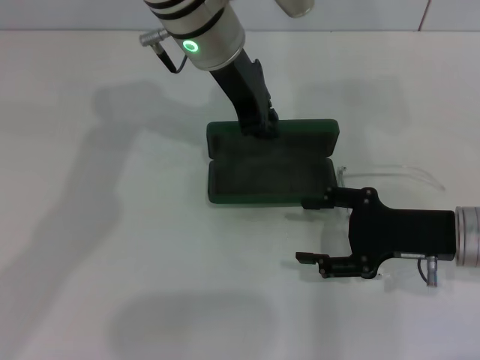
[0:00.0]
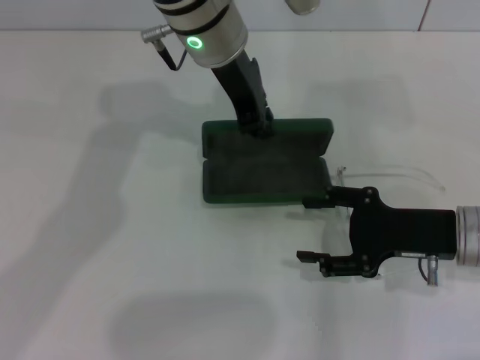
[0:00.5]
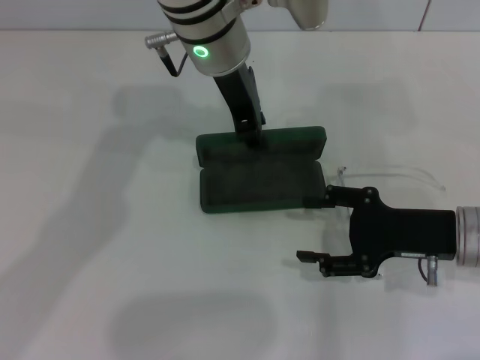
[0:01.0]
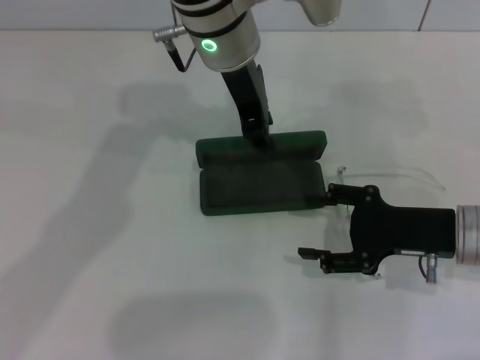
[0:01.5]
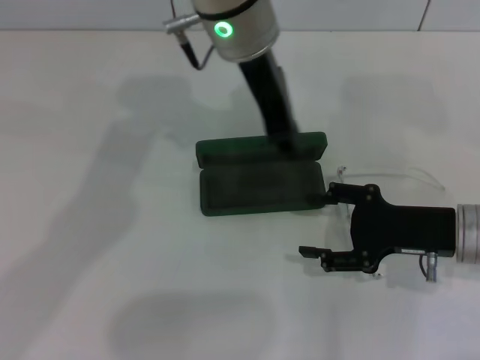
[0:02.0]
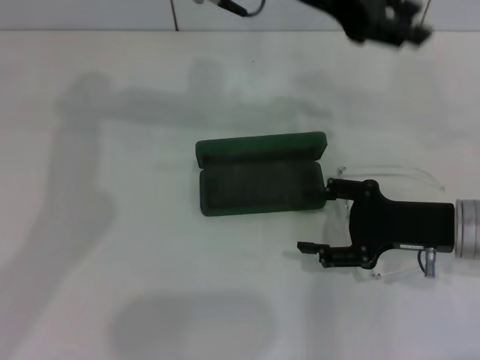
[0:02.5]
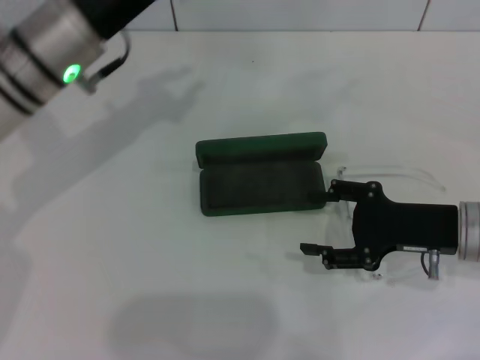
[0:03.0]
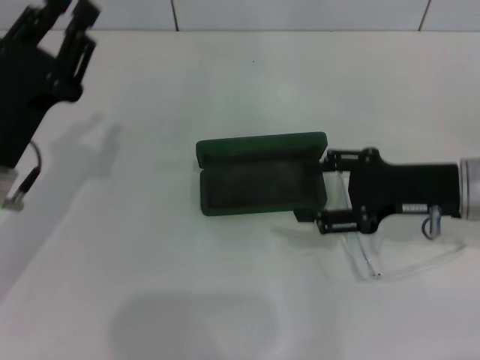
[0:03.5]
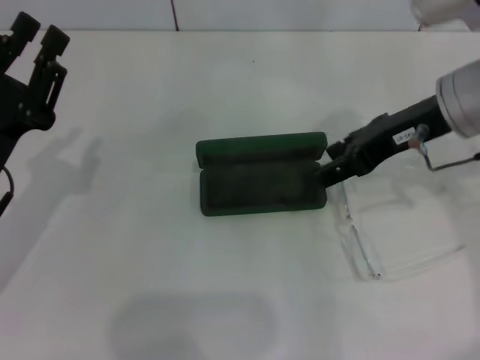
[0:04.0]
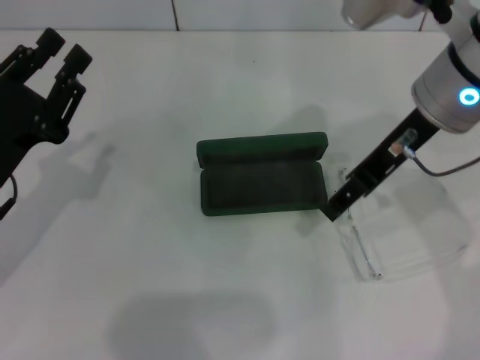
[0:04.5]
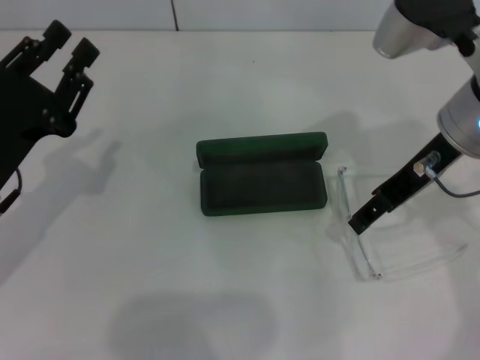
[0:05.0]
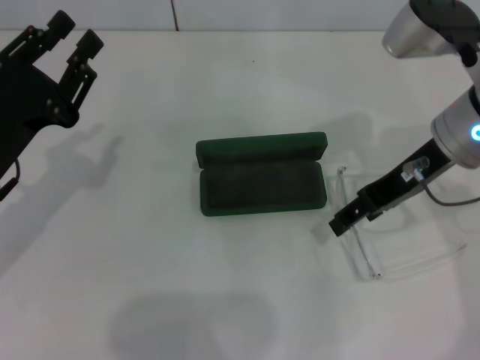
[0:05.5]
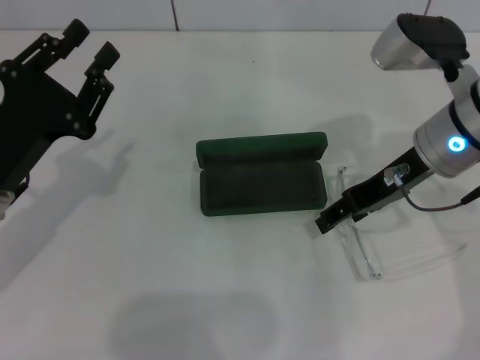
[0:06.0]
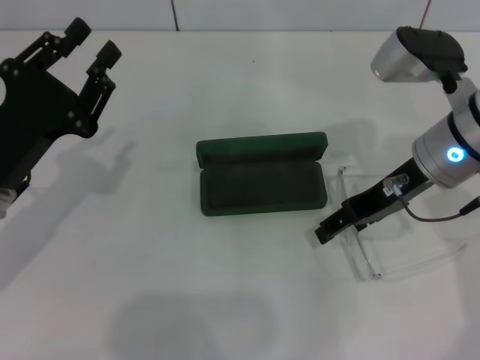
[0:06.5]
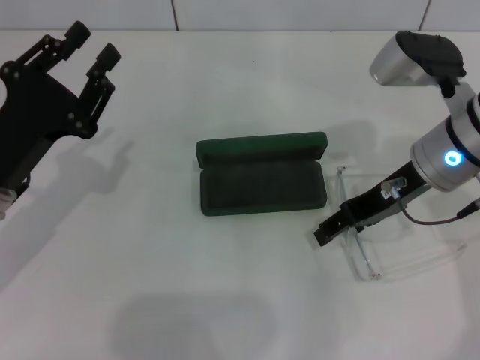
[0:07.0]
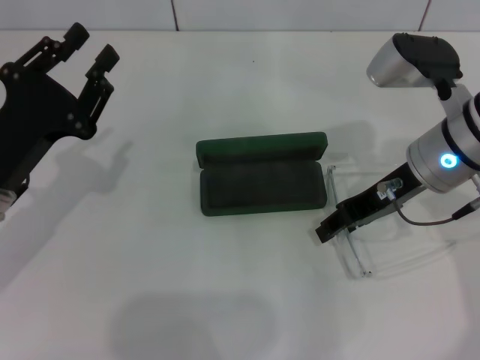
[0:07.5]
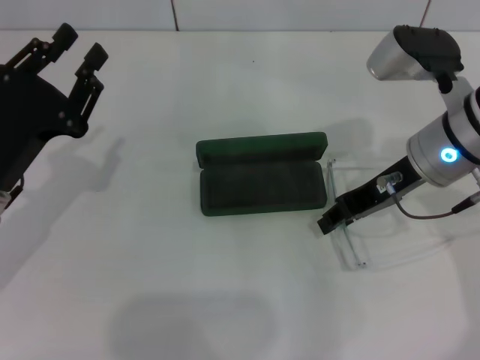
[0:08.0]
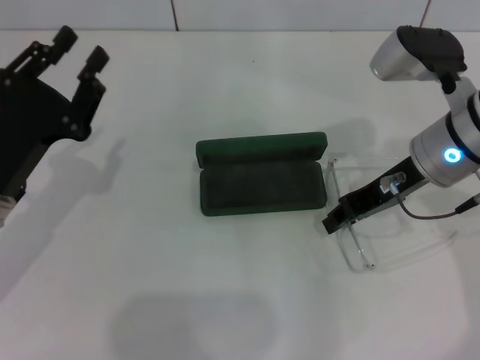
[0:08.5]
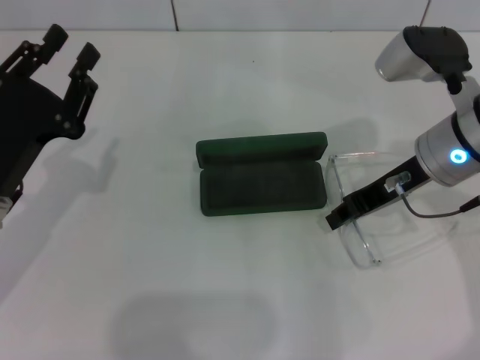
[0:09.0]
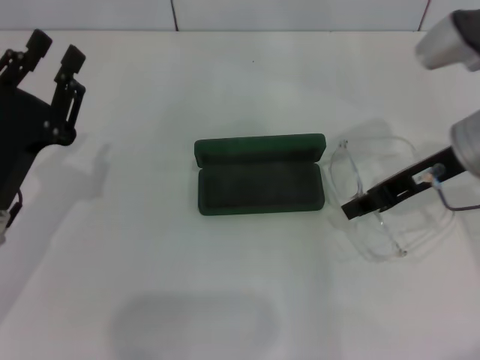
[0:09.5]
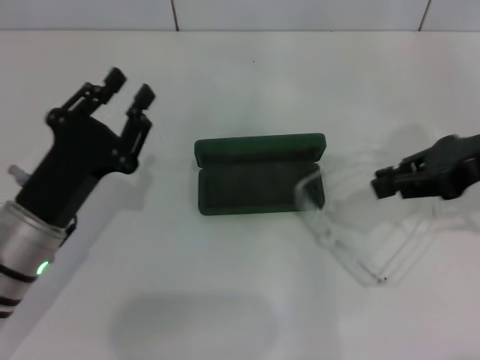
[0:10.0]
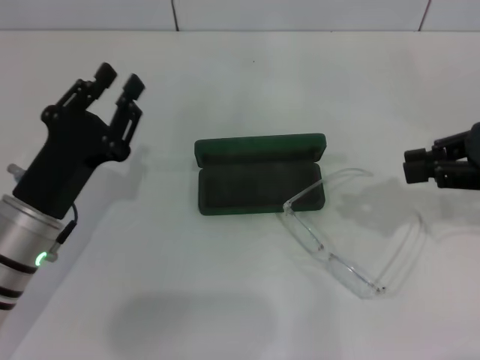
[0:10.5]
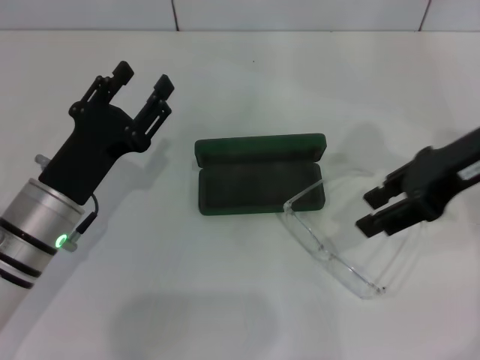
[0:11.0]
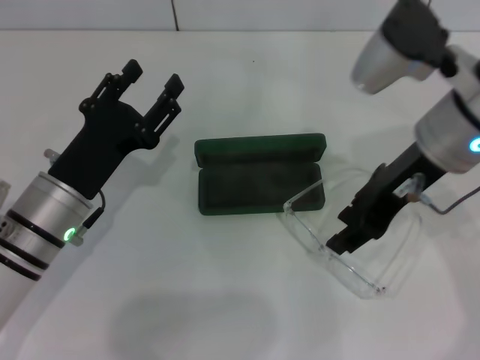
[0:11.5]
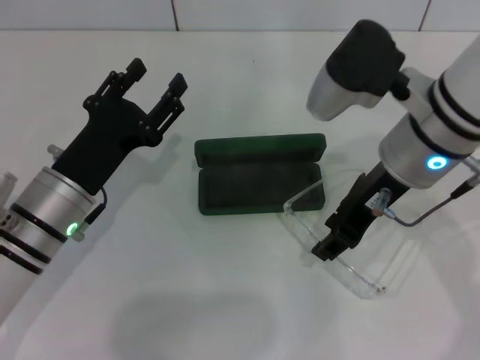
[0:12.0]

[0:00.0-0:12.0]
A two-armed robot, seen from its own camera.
Step, 2.0 to 9.0 s: Grab the eyeglass frame with your right hand.
0.0 to 2.0 s: The grippers make only small movements.
2.0 to 4.0 s: The left gripper travels to the left, backward and downward by some 35 cm. The right gripper heads upward and forward, covering about 15 cm.
6.0 to 8.0 s: The right gripper closes up.
8.0 to 10.0 s: The left gripper changes place by roughly 5 cm; the right gripper goes roughly 10 cm to the right, and closes.
10.0 to 12.0 s: The left gripper opens. Meanwhile the right gripper goes roughly 15 cm to the left, and opens up.

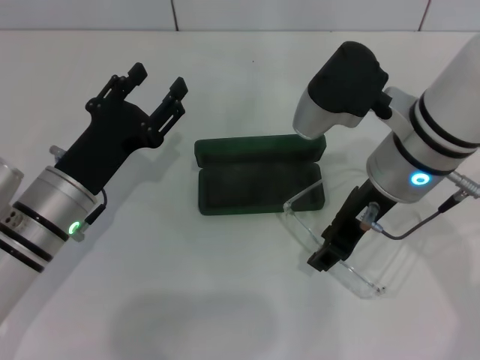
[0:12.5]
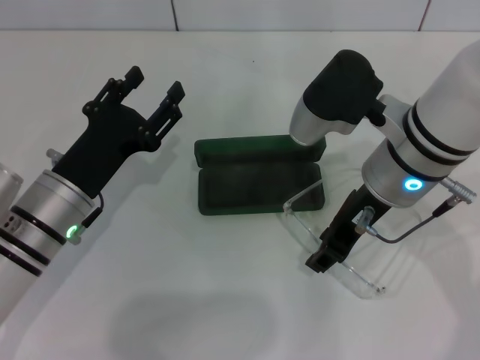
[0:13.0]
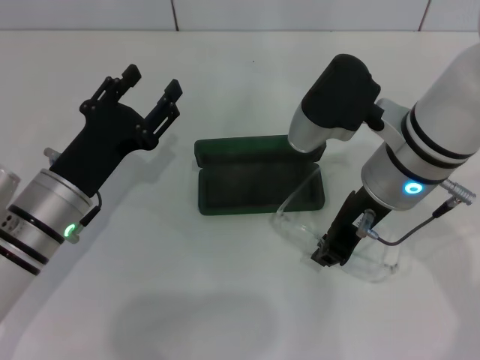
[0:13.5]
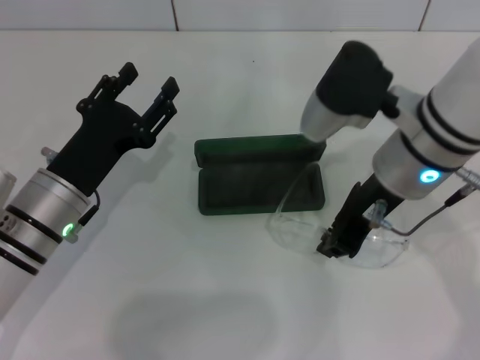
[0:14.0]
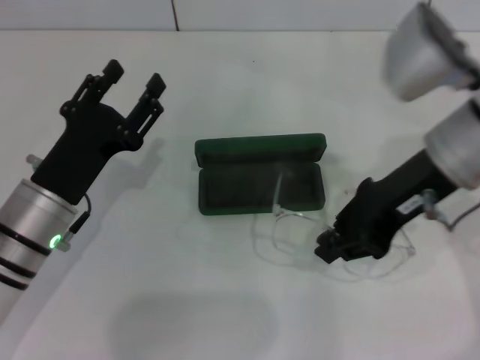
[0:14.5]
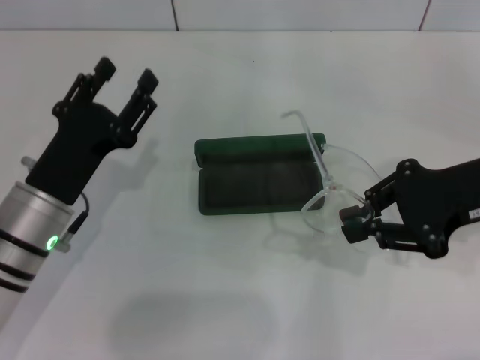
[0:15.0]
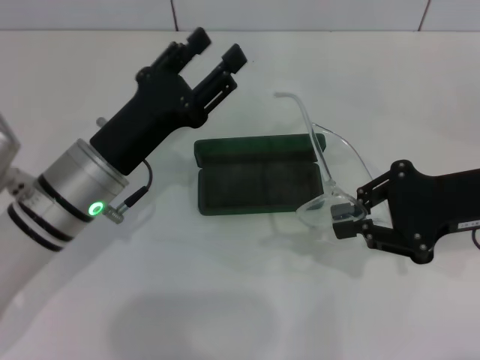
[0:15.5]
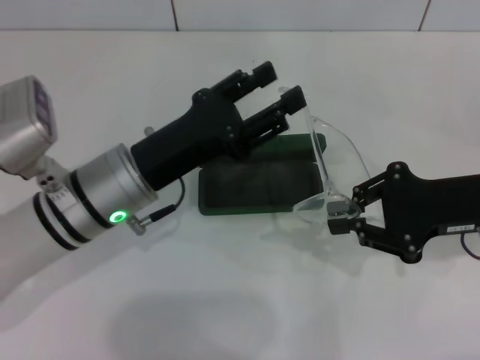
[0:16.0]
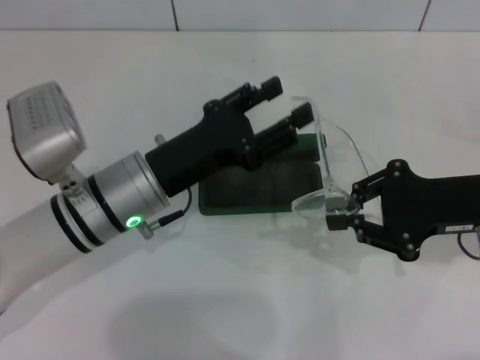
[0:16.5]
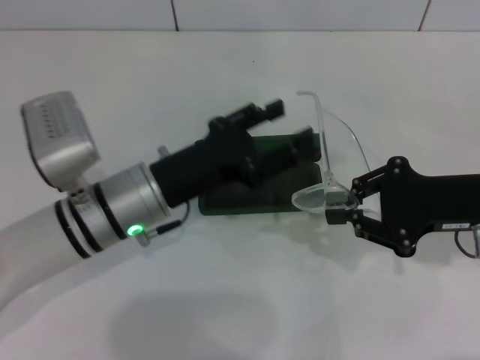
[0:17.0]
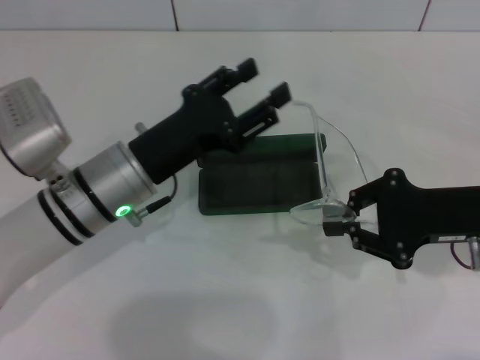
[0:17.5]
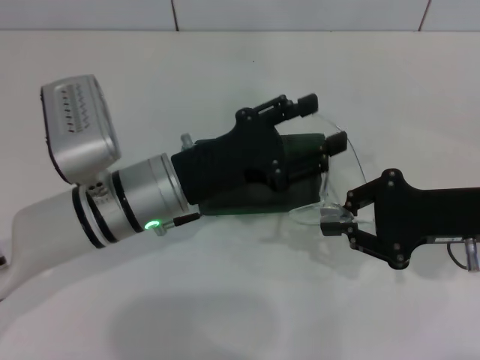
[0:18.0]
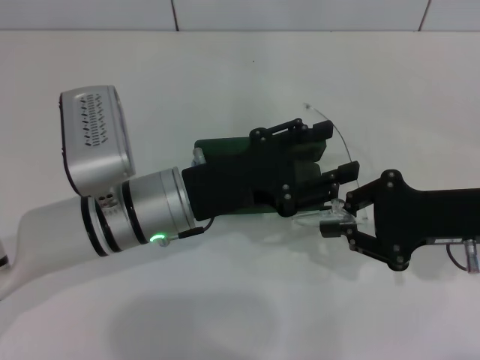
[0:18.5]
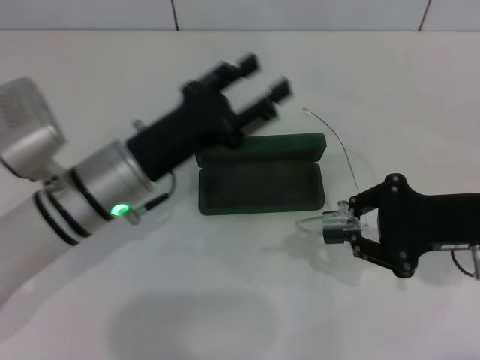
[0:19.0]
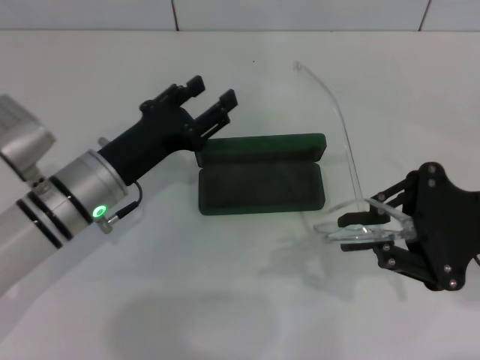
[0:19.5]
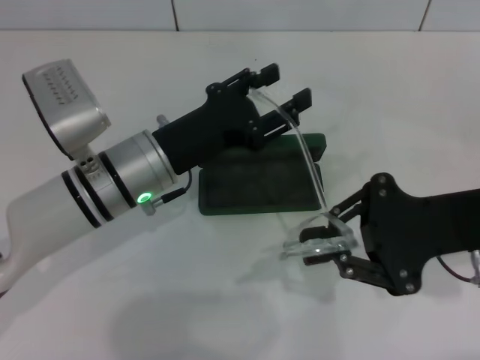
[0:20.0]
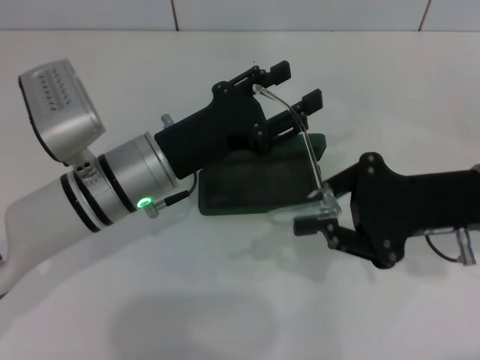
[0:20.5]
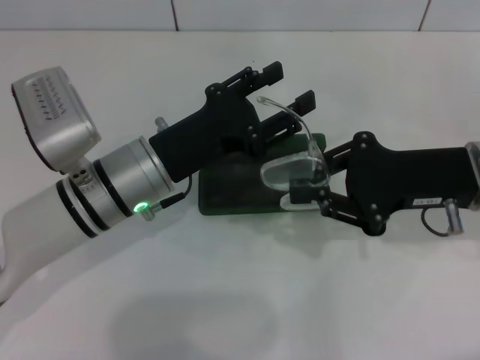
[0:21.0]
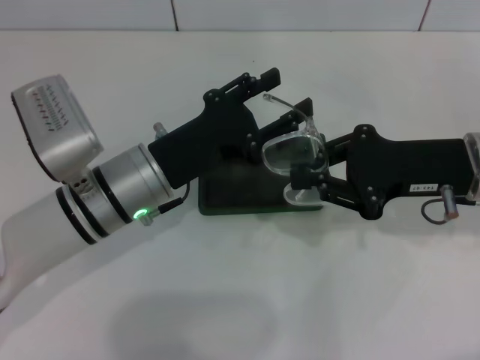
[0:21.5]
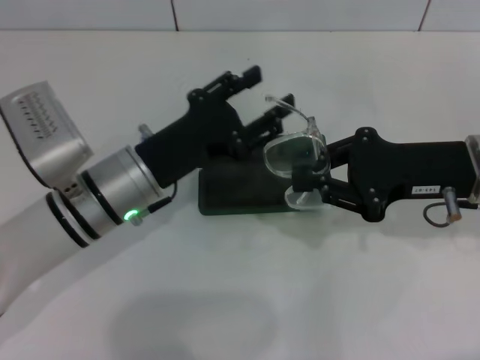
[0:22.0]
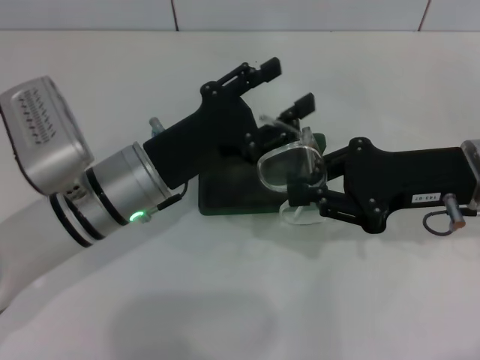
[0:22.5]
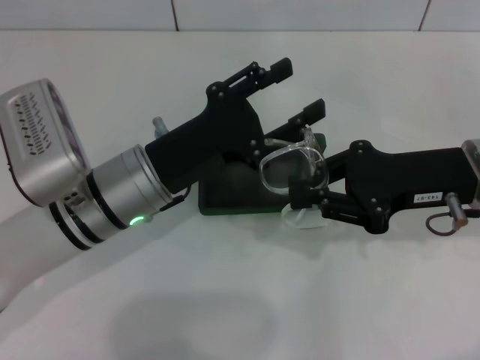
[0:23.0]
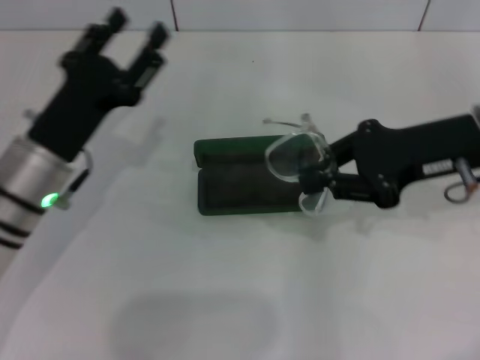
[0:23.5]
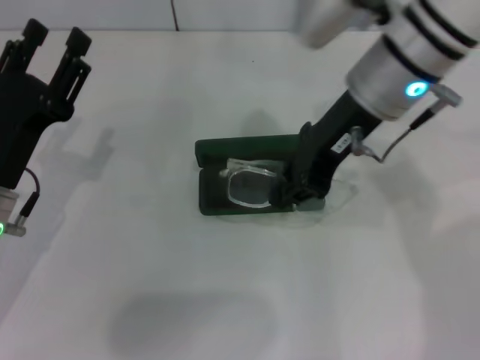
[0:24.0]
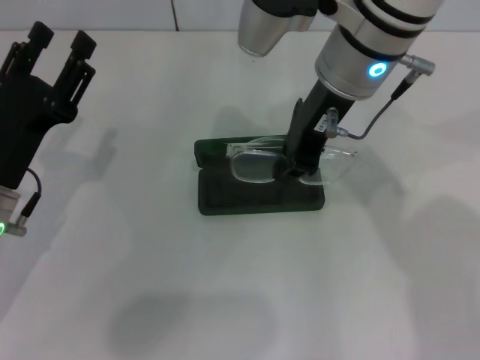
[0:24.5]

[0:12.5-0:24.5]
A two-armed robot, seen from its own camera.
Step, 12.5 to 23.0 s: Fold the frame with your left hand.
12.5 to 14.5 s: The right gripper moves some 5 cm, and closes its fingers.
14.5 to 16.5 s: The right gripper is displaced to the right and downward by some 10 cm; the left gripper shifts roughly 5 cm to the right.
16.5 to 18.5 s: The grippers move only a little.
22.5 to 24.5 s: The left gripper travels to the left by roughly 10 cm, while the right gripper is displaced to the left, upward and forward by roughly 20 cm.

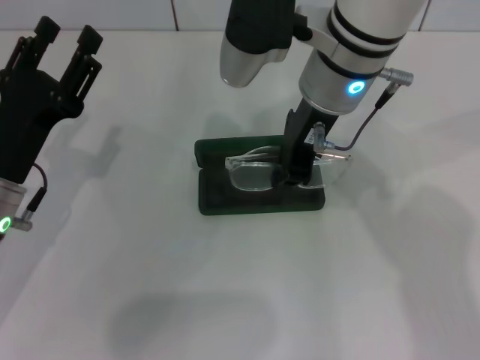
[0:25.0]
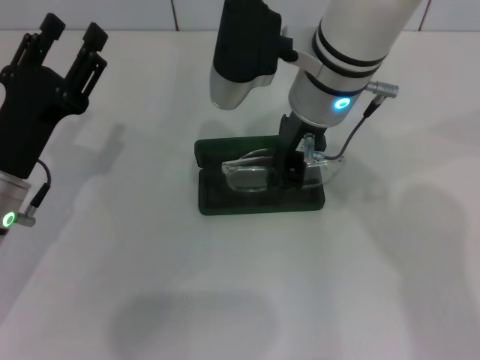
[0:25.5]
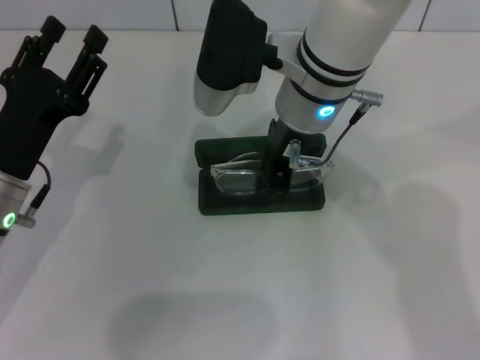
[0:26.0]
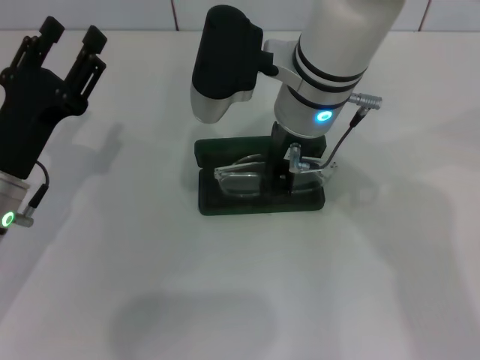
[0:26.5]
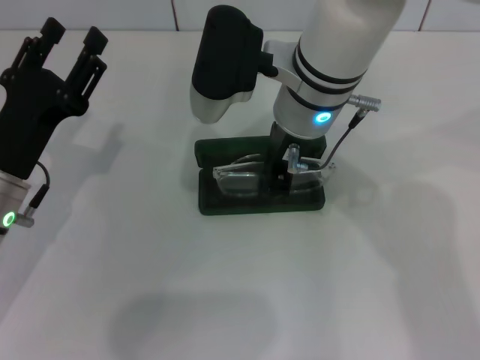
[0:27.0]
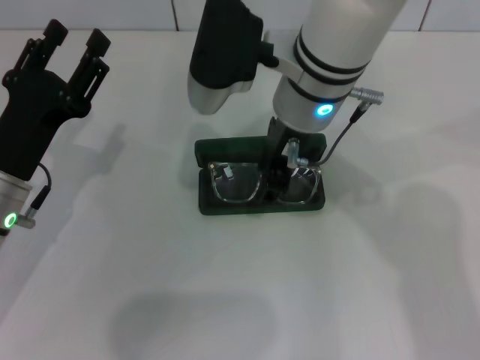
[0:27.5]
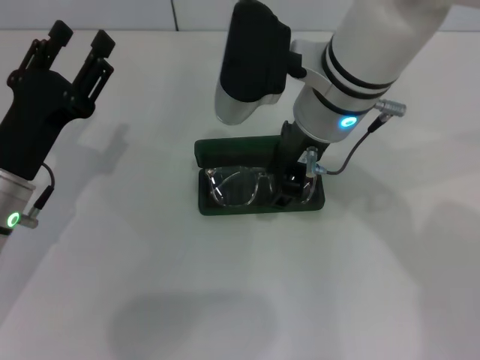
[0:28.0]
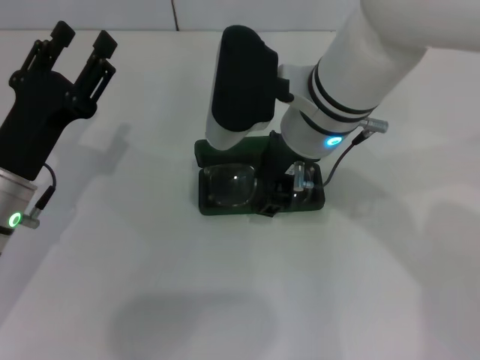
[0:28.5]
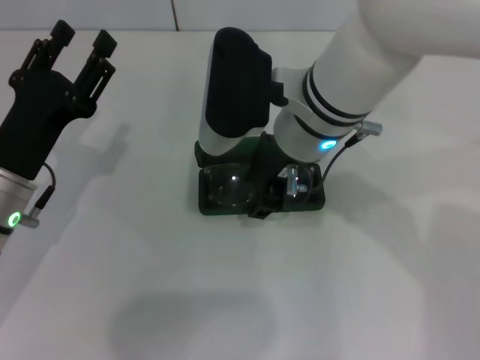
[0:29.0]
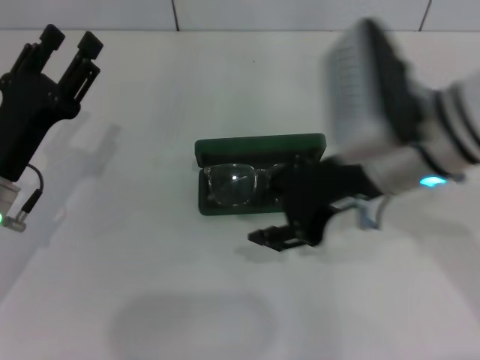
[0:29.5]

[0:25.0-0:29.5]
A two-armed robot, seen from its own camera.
Step, 25.0 to 28.5 s: Put the glasses into the case with your right hand.
25.0 to 27.0 s: The grippers make only small movements.
27.0 to 29.5 s: The right gripper travels to the right and backward by approximately 10 cm, and opens its fingers.
